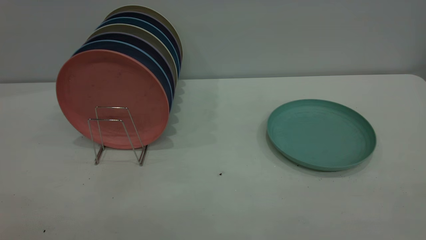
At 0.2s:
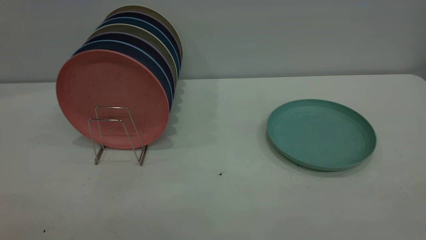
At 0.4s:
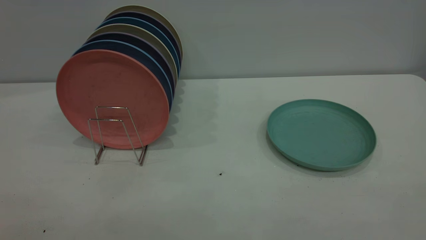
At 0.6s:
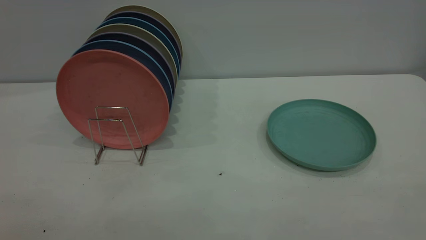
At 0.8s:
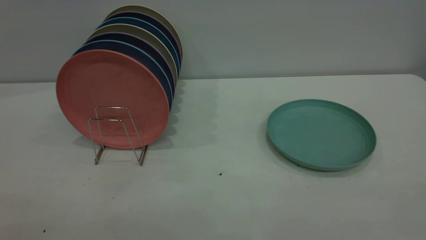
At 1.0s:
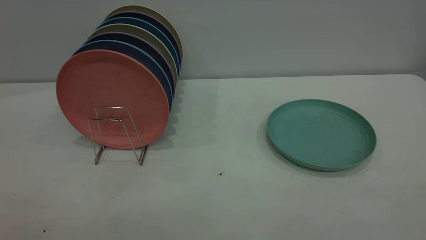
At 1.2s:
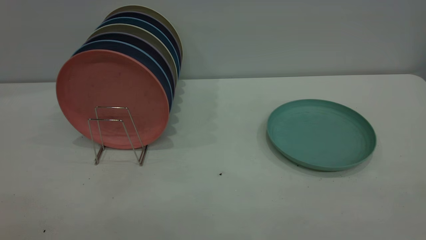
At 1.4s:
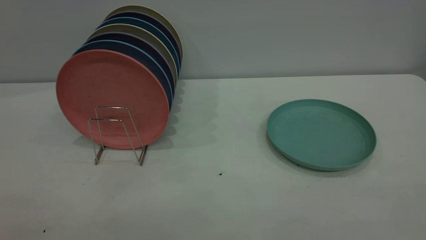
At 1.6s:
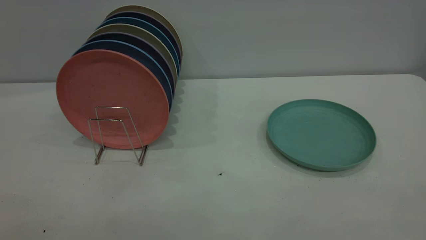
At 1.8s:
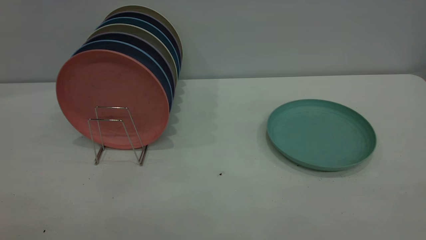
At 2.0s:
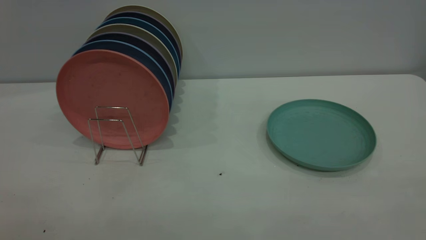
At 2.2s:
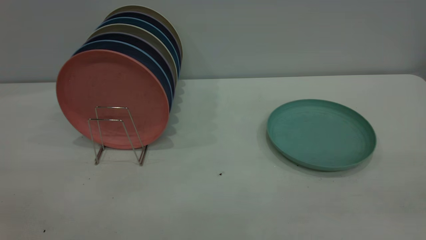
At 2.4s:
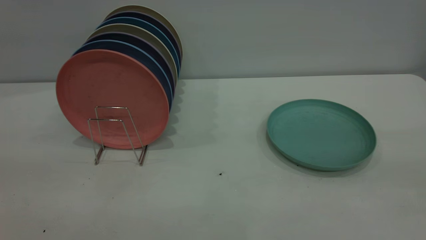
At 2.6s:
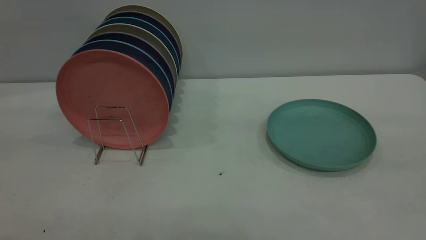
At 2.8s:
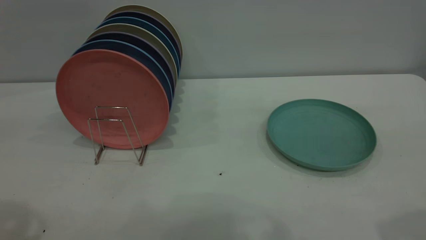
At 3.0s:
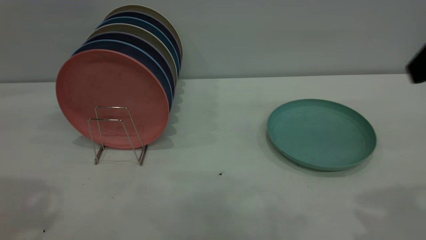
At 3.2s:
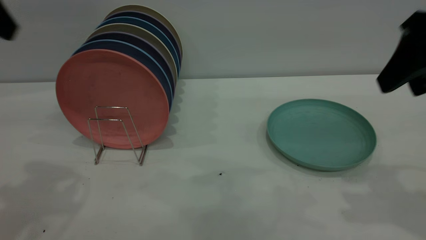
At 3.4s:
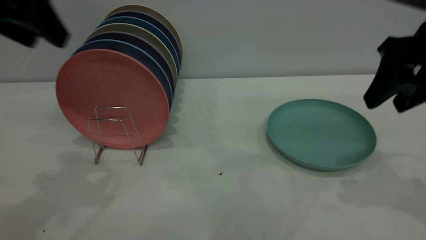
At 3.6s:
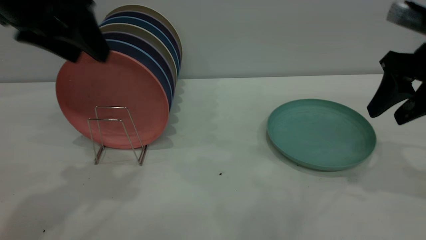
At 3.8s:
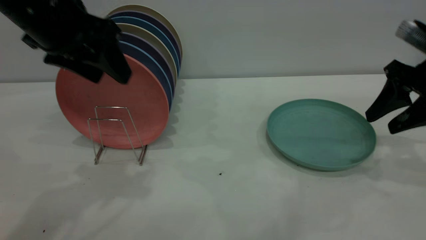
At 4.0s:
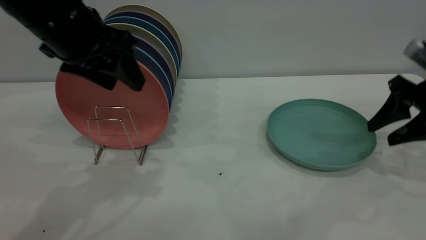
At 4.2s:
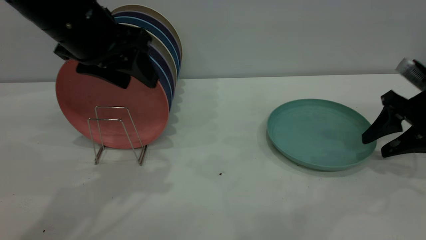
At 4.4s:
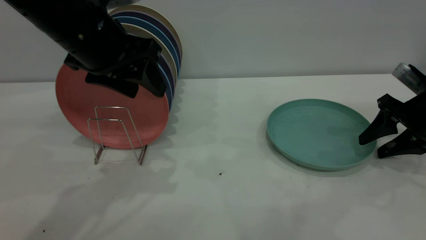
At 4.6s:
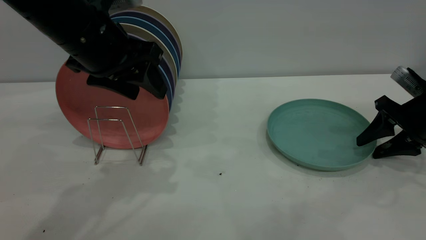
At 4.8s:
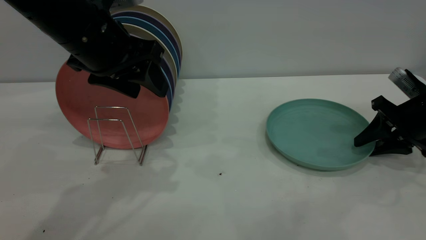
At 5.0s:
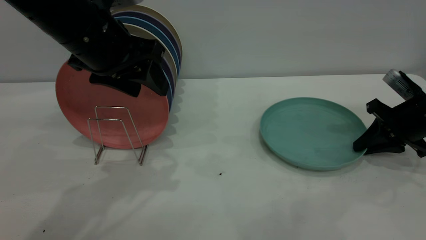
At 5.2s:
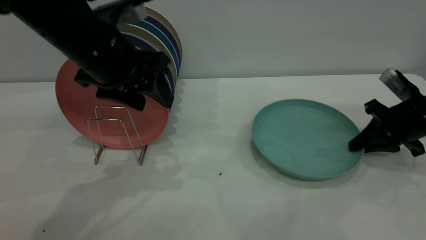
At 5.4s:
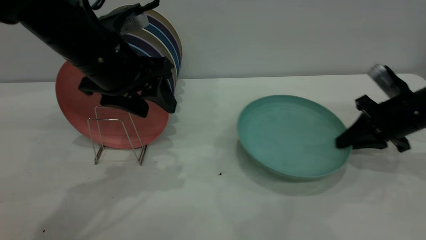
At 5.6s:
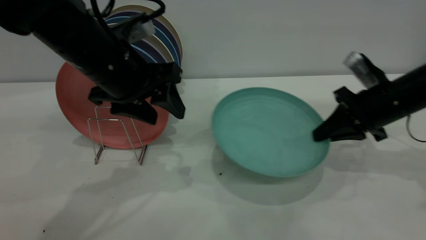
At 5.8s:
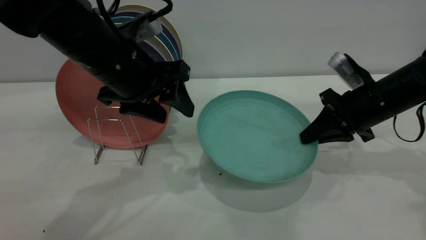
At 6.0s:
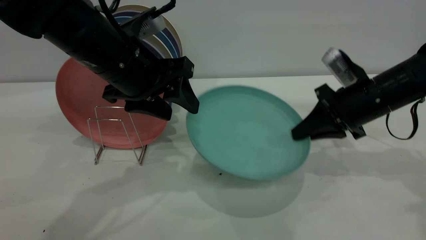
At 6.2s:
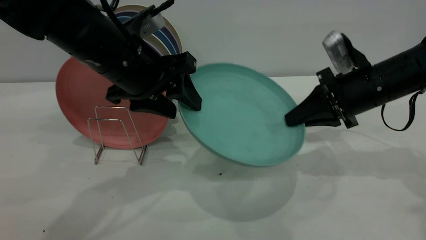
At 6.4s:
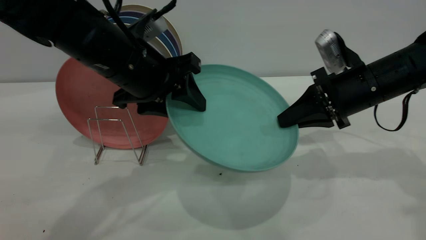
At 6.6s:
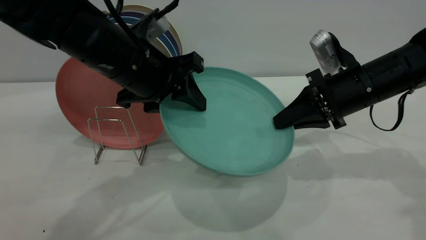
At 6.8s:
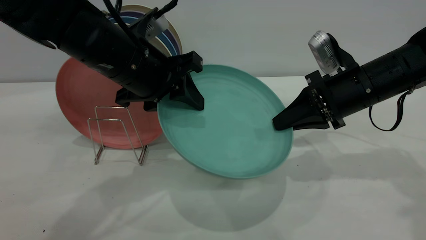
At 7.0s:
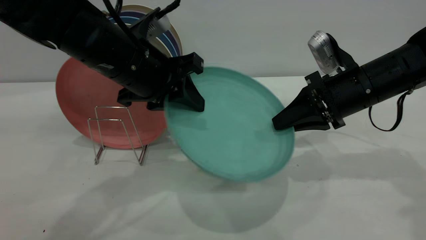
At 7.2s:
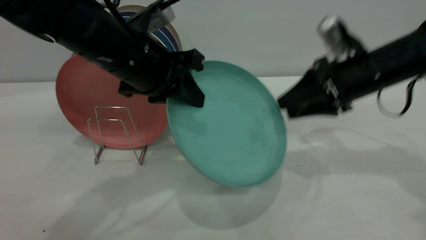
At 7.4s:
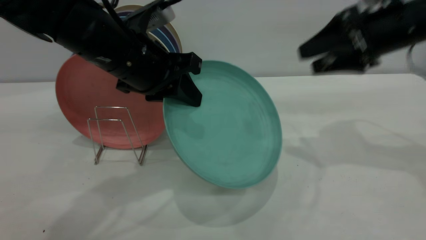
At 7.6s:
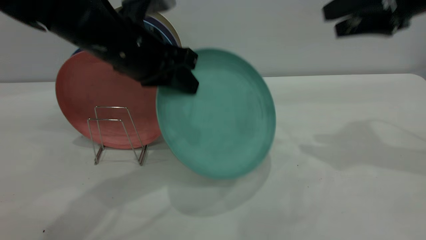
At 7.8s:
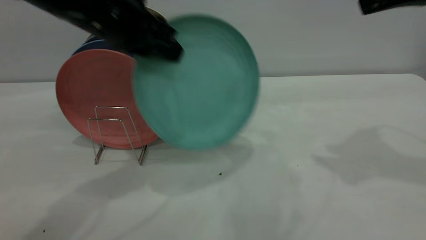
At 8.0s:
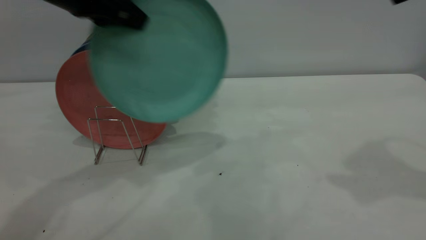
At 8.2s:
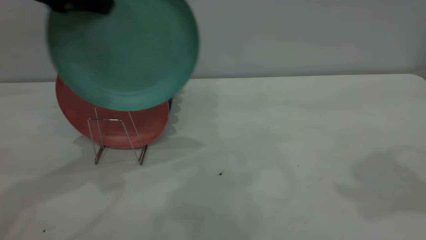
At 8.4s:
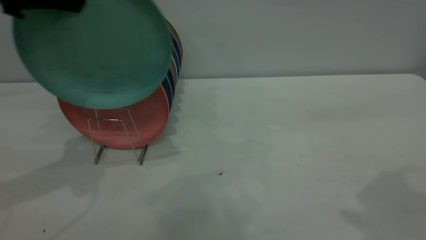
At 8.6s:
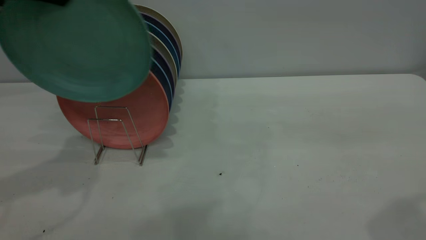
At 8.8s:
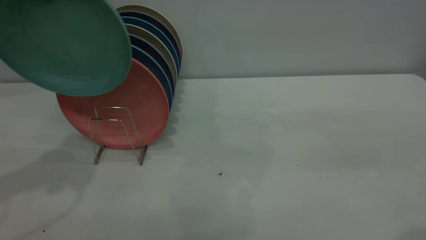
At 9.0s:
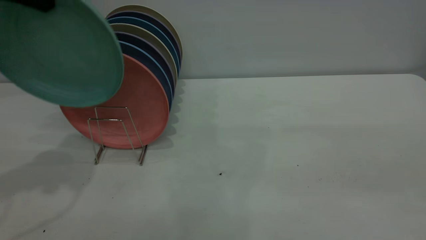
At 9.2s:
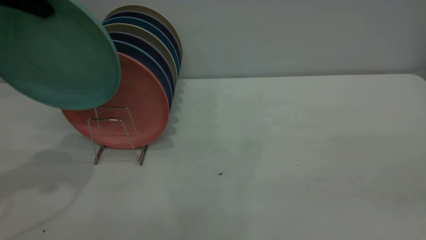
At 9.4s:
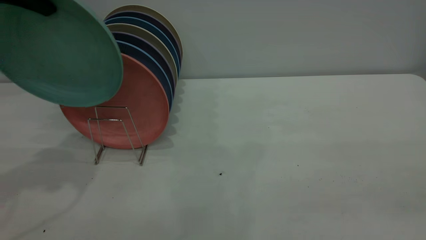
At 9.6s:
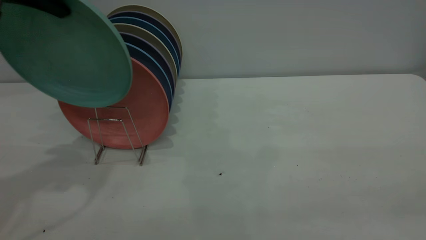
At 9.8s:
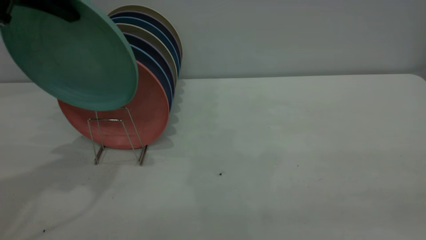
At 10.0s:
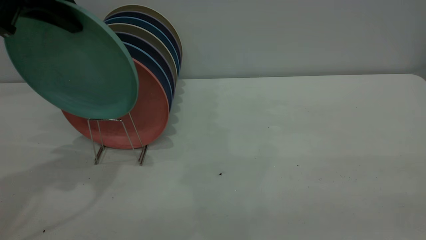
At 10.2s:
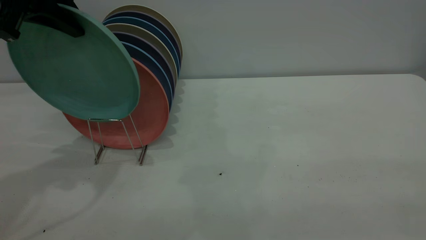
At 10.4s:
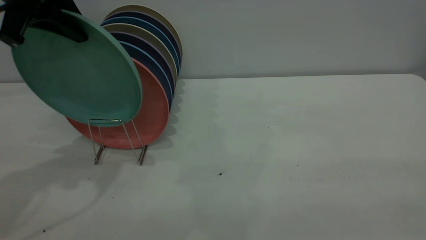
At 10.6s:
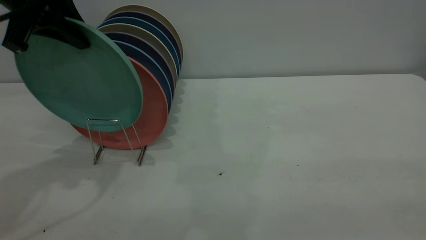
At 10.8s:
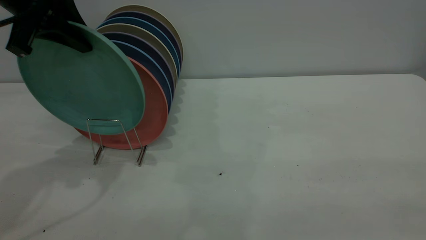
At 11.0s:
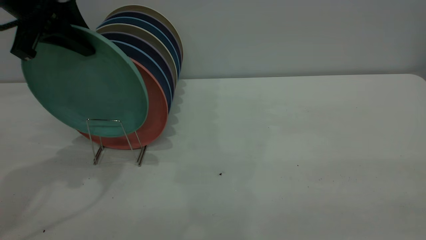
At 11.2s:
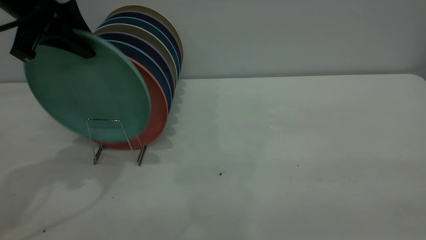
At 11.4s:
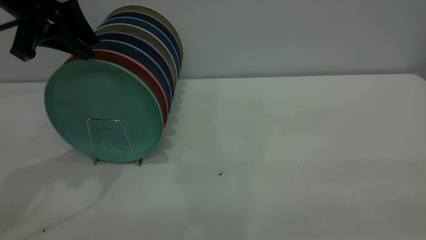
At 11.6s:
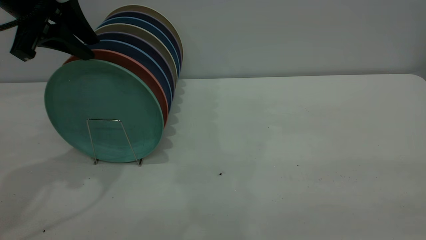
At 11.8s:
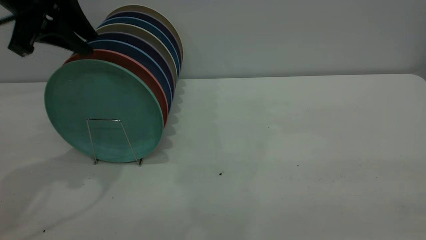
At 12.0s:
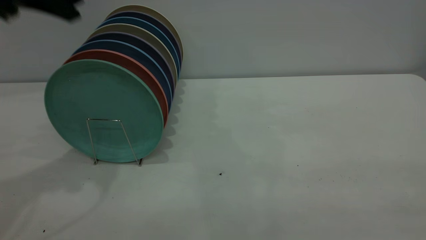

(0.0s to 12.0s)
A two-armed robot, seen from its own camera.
Task of the whole recording: the right gripper grasp the green plate, the right gripper pass the green plate to the left gripper, and the left gripper place the green plate on the plate rack.
Step, 0.0s - 5.4s: Pick up the plate with the right gripper.
Step, 5.6s - 7.0s: Pass the plate from the right gripper to the left gripper.
Step, 7.4s - 11.8s: Place the plate on the shelf.
0.0s - 1.6s: The two grippers keep their place.
3.0s - 4.4s: The left gripper moves to the right, downward and forward, roughly 20 cm; the right gripper travels downward and forward by some 25 cm.
4.4s - 6.0s: The right gripper heads to the left, covering approximately 10 cm, and closes up.
6.0s - 7.6s: The right gripper moves upward, roughly 15 cm, and opens; the left gripper closes up.
7.6s - 9.0s: The right gripper is displaced backward by some 25 cm; the left gripper goes roughly 20 cm to the left and upward.
9.0s - 10.4s: The left gripper changes place by some 5 cm.
10.4s - 12.0s: The left gripper changes place by some 5 cm, and opens its fingers.
